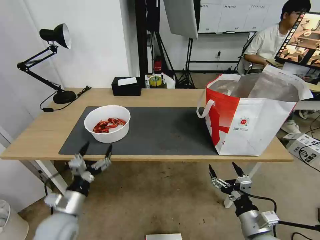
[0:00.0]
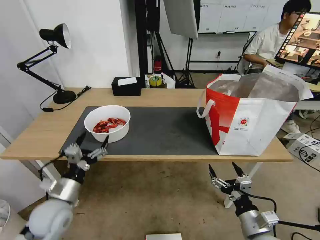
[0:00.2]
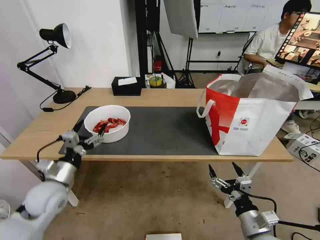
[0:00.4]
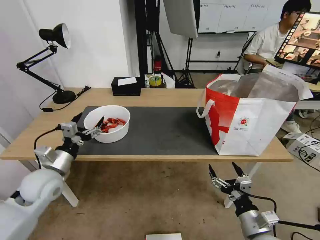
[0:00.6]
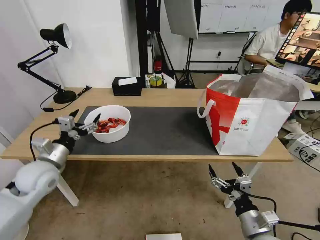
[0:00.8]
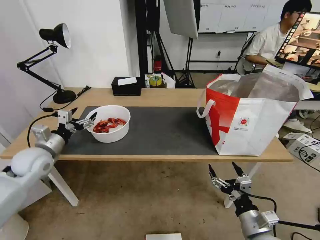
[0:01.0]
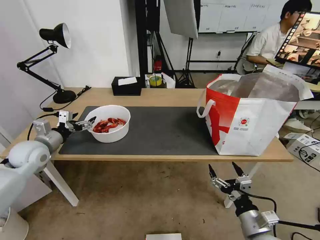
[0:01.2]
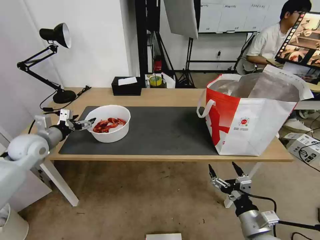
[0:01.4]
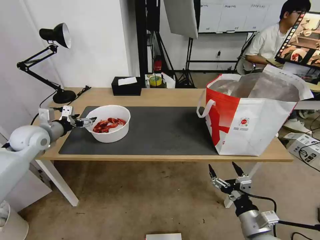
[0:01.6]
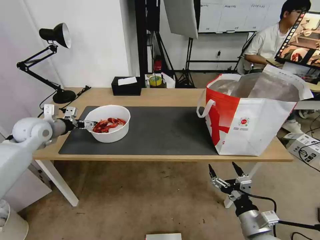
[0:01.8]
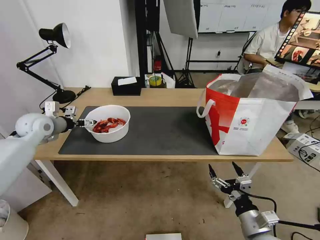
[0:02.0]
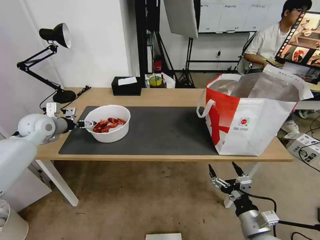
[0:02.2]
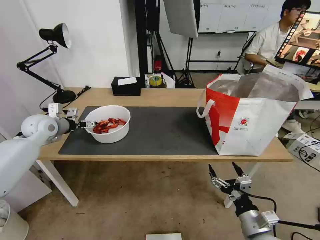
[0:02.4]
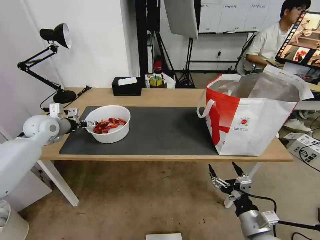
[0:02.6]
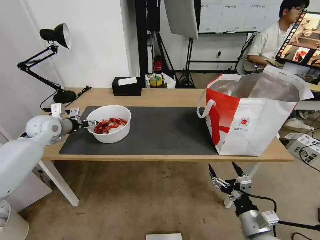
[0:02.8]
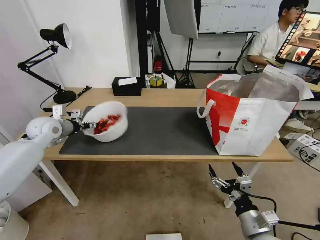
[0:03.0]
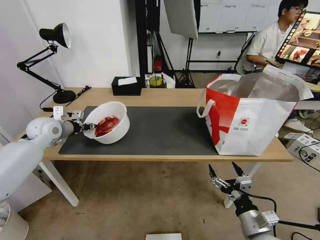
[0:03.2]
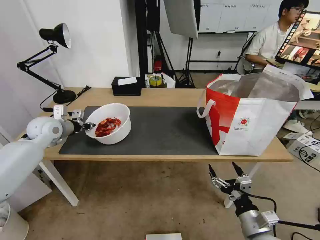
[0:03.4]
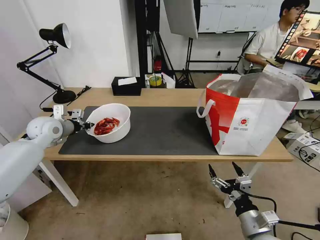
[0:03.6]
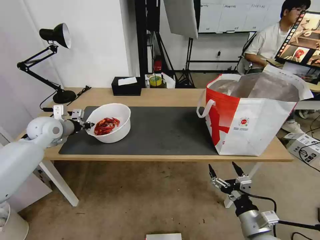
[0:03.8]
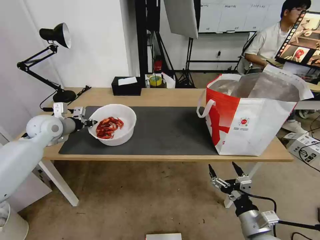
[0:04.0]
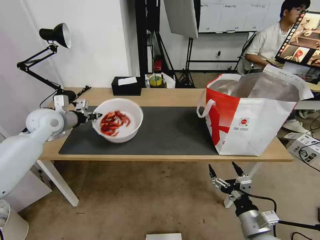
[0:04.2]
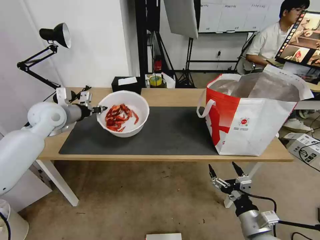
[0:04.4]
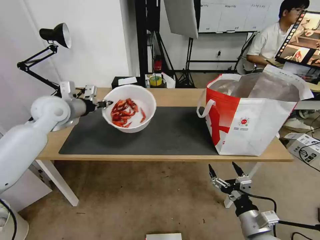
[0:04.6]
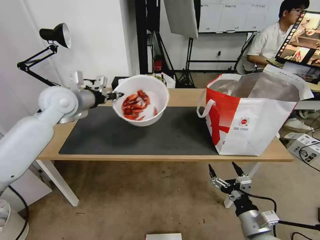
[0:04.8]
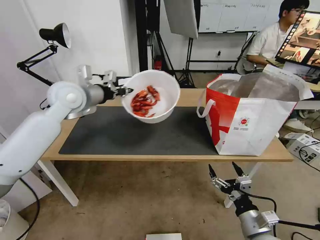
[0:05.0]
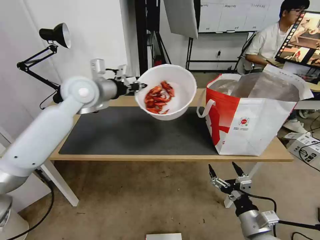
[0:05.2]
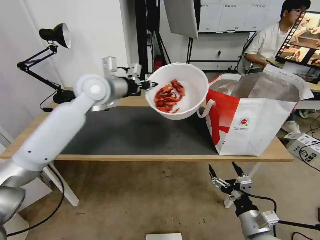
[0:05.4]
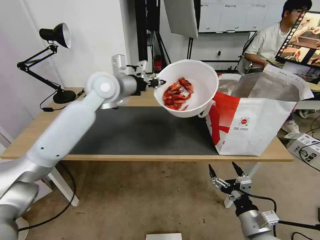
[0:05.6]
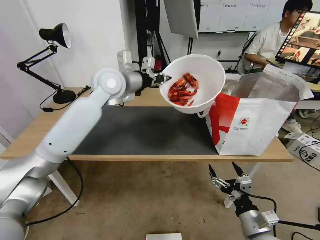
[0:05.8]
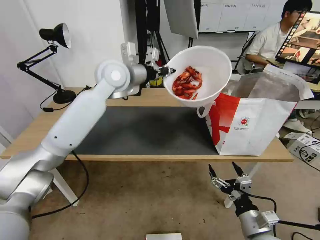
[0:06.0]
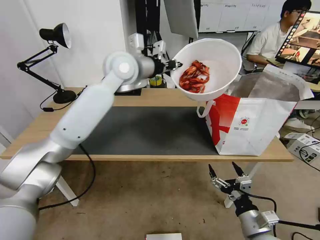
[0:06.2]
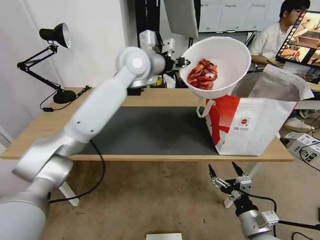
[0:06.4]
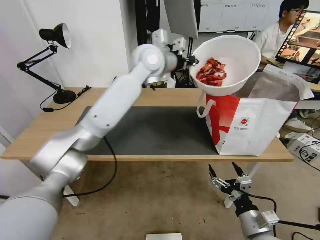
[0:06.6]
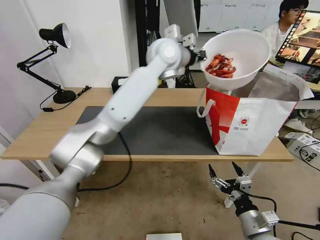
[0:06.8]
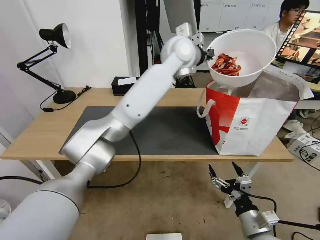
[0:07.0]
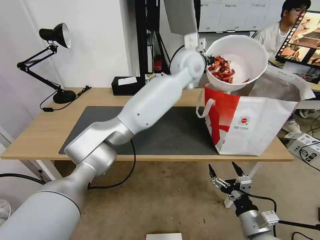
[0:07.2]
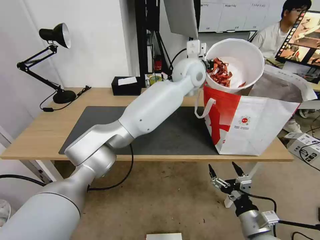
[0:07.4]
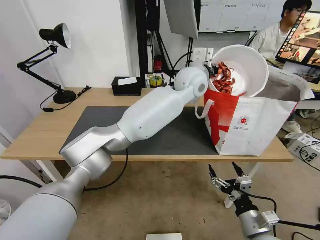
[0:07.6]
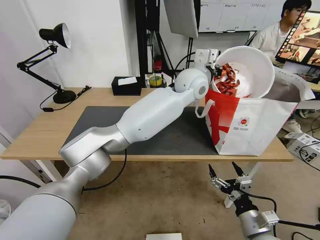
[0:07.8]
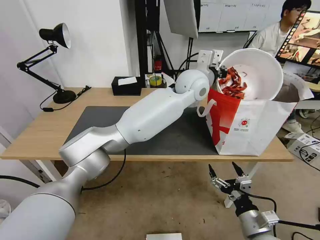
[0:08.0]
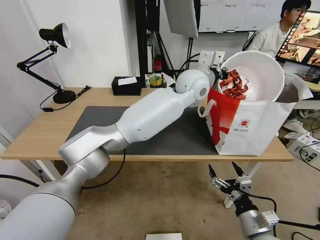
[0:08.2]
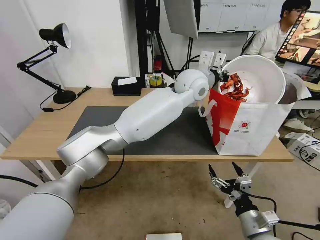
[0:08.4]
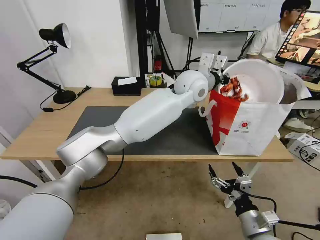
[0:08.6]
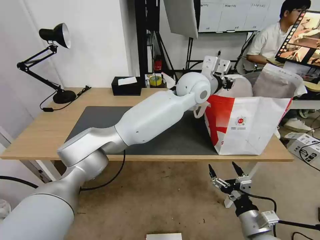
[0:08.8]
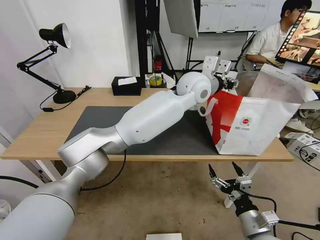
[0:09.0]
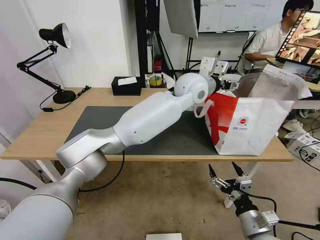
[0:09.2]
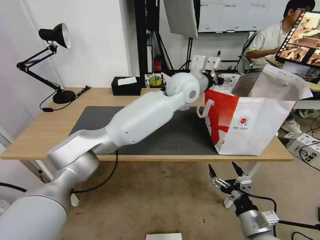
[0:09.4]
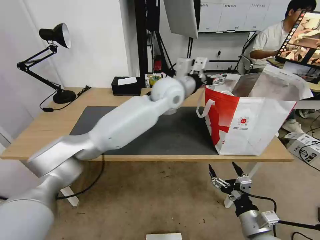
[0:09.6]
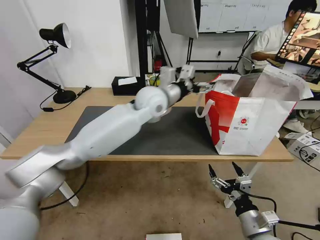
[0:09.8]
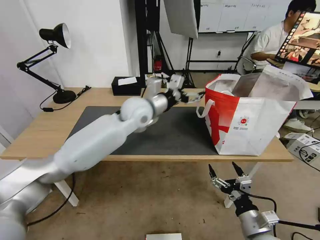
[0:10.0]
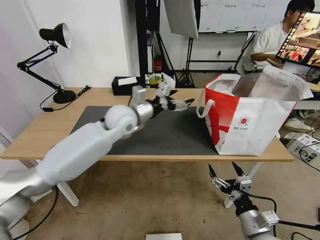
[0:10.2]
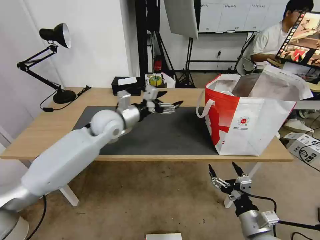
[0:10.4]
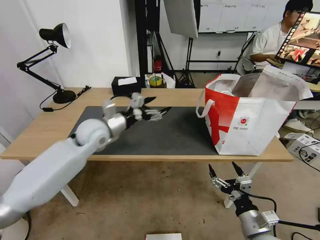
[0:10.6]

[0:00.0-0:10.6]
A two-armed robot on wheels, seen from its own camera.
Task of the whole recording: Pick up the trash from the table and place it into the takeout bag.
0:00.0 to 0:01.6: The left gripper shifts approximately 30 cm forward, upward and to the left.
0:01.6 to 0:03.0: The left gripper shifts by roughly 5 cm, and closes.
0:03.0 to 0:04.6: The left gripper moves upward and to the right, about 15 cm, and closes.
0:04.6 to 0:06.0: The left gripper is displaced to the right and upward by some 20 cm.
0:06.0 to 0:07.6: The left gripper heads to the right, covering about 20 cm.
0:07.6 to 0:09.0: The left gripper opens its fingers.
0:09.0 to 0:10.6: The left gripper heads to the left and downward, covering approximately 35 cm, and opens.

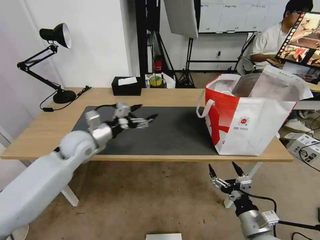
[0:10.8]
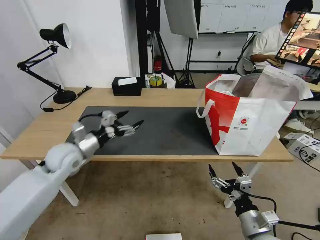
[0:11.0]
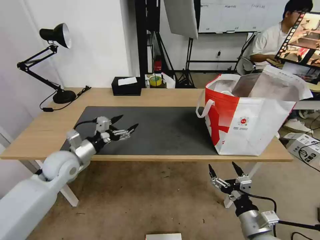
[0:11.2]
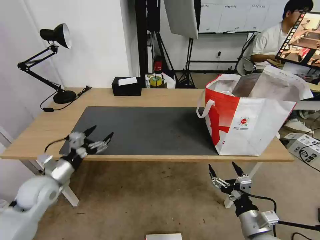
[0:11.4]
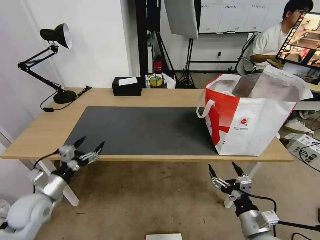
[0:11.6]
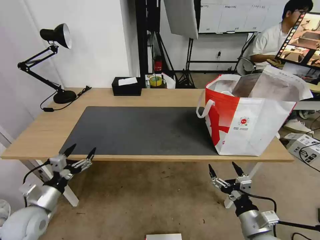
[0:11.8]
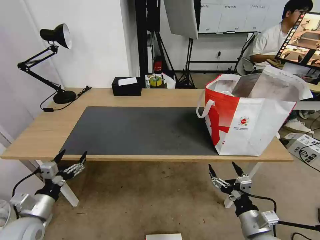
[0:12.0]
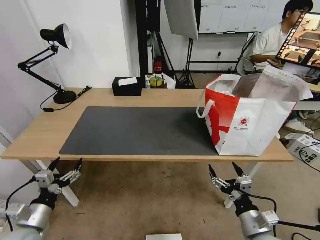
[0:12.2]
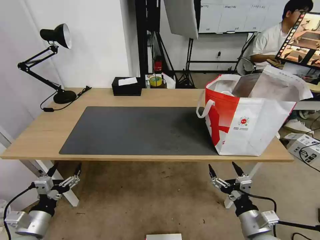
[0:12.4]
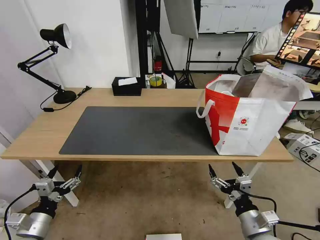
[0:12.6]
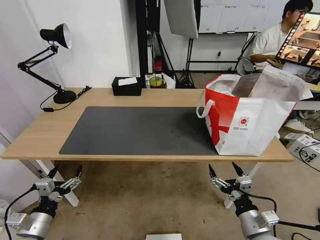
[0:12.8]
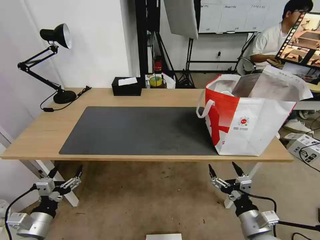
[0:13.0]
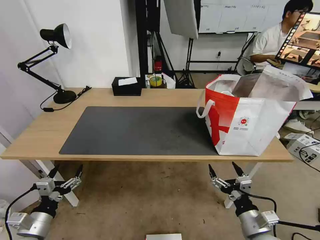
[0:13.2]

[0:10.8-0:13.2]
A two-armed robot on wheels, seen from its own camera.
Task of the whole recording: Pick up the trash from the table and place it into the takeout bag.
0:10.8 to 0:12.0: The left gripper moves backward, downward and to the left, roughly 30 cm.
0:12.0 to 0:13.2: The left gripper changes place by about 5 cm.
